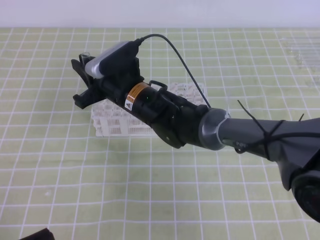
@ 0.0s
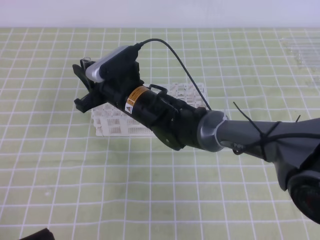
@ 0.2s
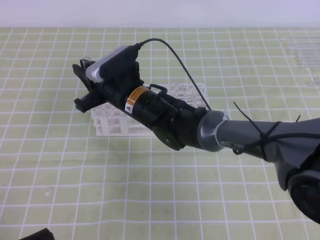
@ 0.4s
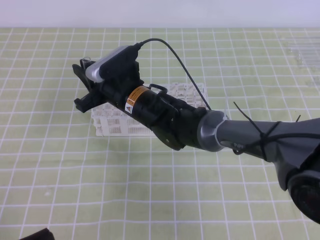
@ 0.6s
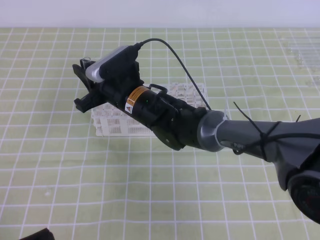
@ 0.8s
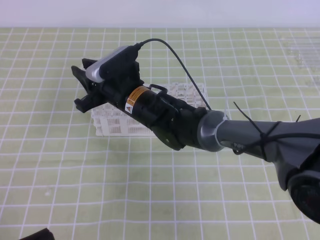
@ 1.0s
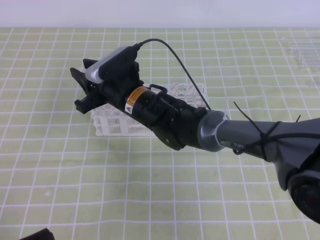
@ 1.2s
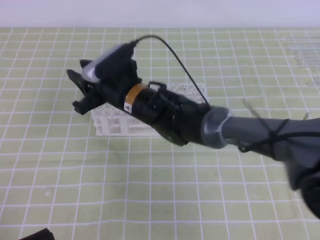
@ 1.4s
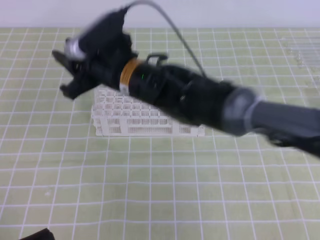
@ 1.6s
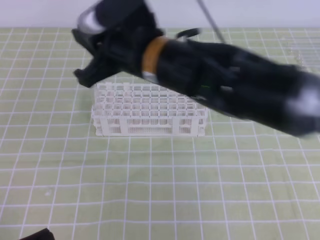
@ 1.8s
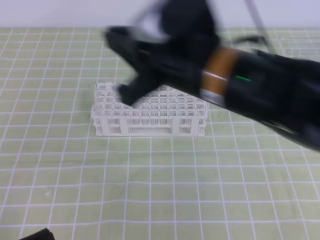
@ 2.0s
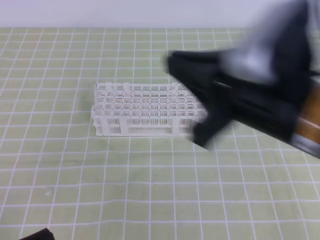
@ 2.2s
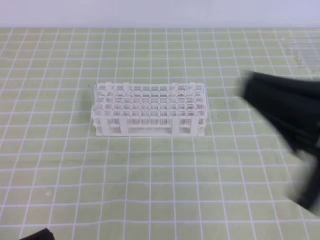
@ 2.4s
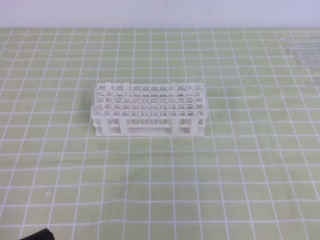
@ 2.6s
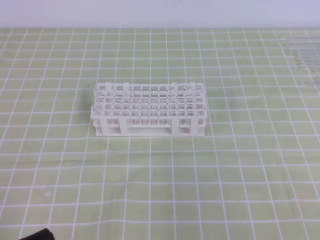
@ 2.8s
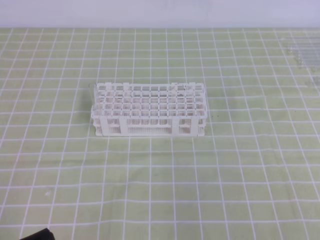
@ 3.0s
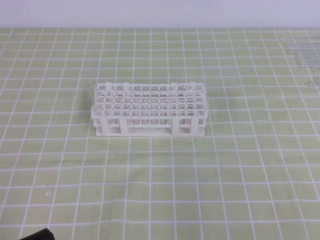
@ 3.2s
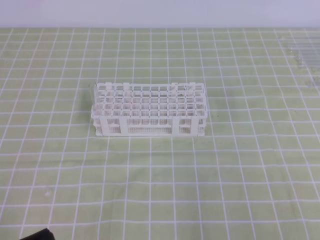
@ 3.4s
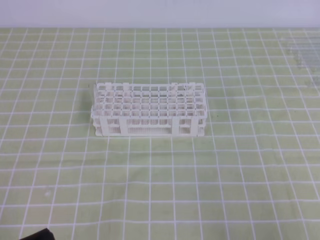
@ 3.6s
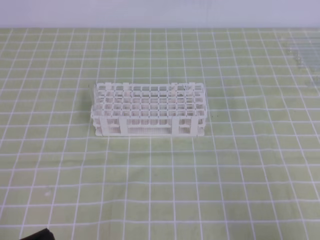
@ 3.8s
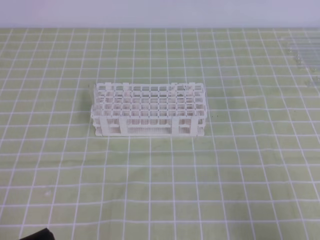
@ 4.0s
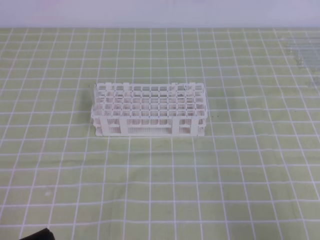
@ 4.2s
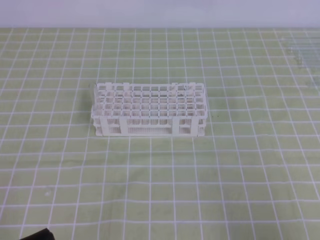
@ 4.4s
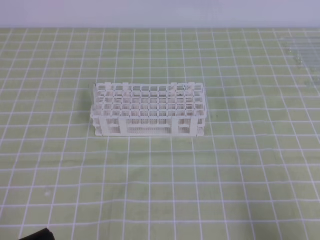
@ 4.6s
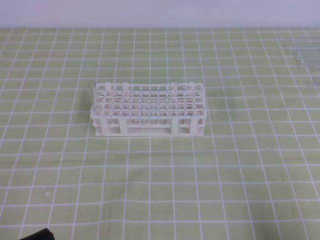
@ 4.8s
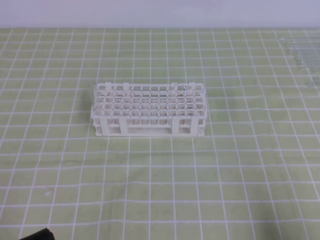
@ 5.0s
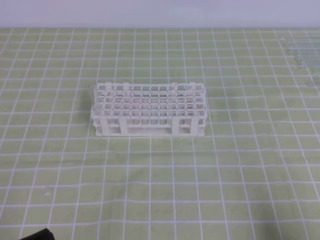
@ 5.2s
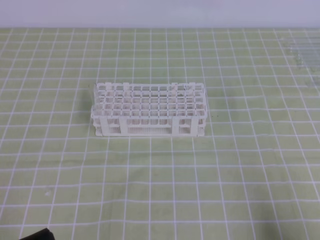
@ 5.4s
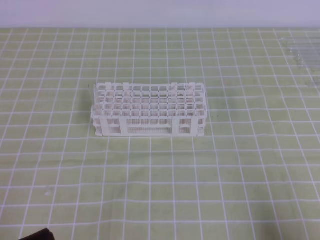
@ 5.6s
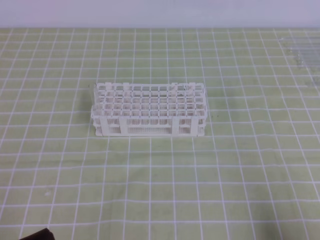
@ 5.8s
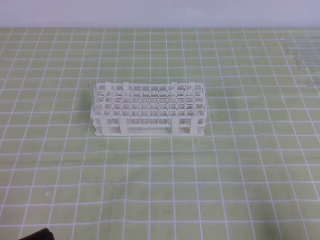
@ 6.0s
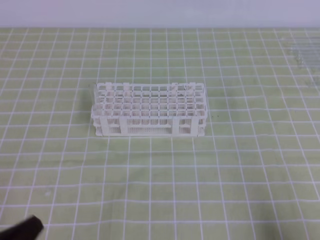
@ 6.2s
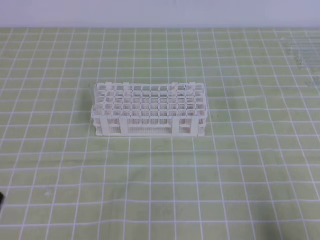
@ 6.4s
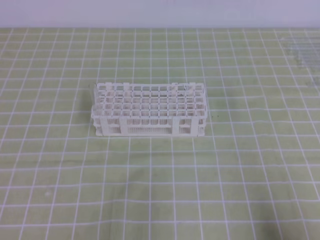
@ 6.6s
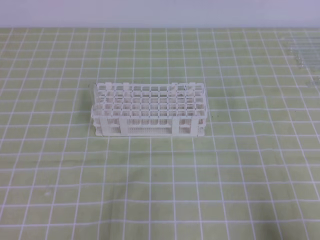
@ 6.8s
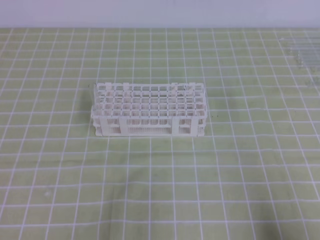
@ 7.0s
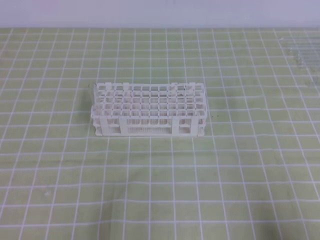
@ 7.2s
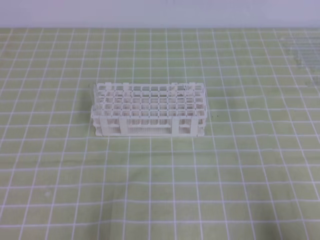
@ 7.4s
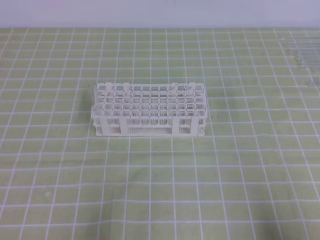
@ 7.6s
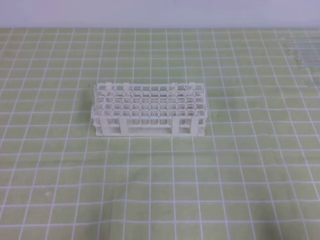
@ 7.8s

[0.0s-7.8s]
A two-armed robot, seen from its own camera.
0.0s to 1.6s: The right gripper heads upward, covering some 5 cm.
1.6s to 3.2s: The right gripper moves to the right and backward, roughly 50 cm, and closes.
3.2s to 4.6s: The right gripper moves downward, about 5 cm.
4.6s to 6.2s: The grippers make only small movements.

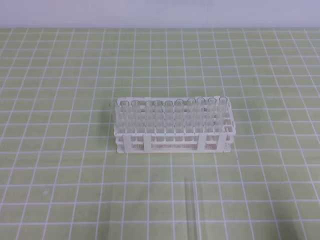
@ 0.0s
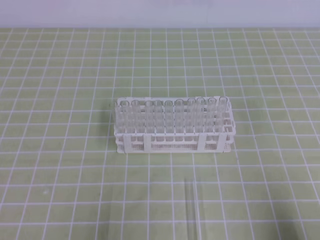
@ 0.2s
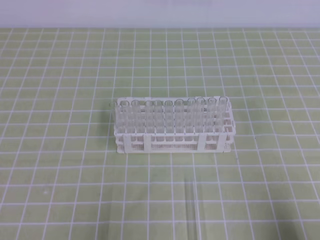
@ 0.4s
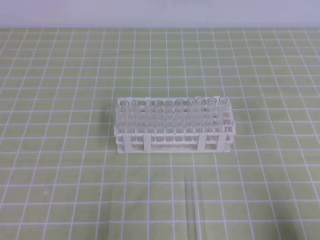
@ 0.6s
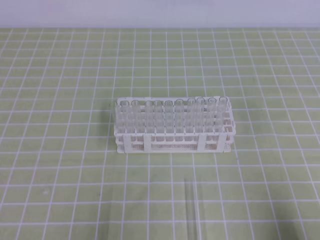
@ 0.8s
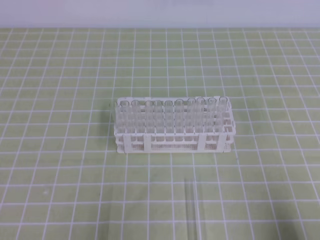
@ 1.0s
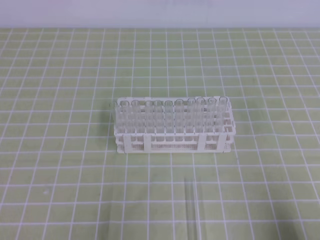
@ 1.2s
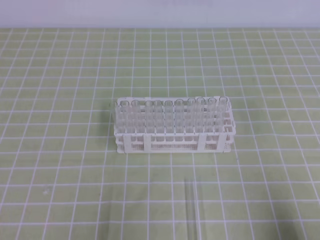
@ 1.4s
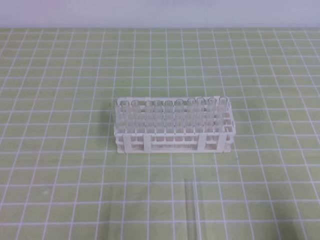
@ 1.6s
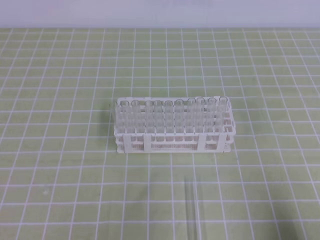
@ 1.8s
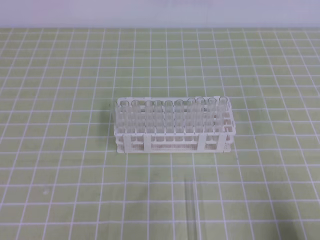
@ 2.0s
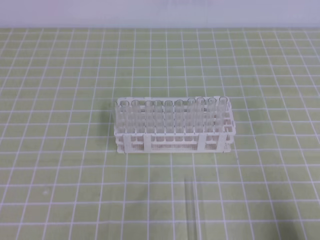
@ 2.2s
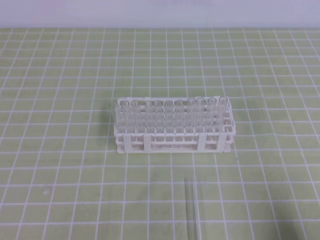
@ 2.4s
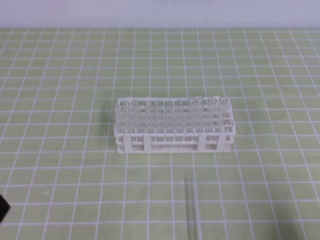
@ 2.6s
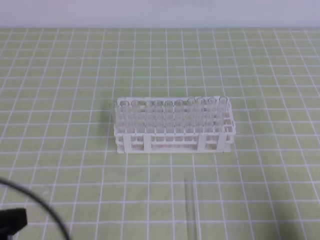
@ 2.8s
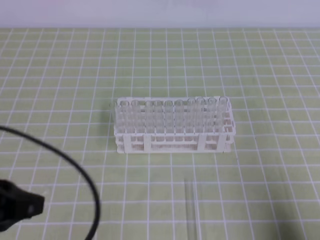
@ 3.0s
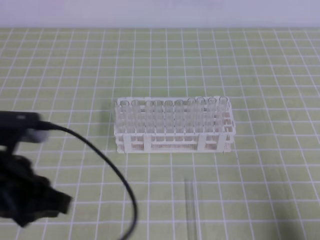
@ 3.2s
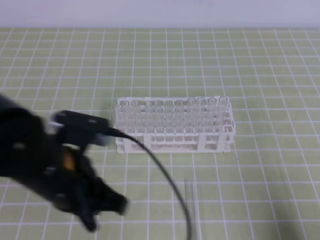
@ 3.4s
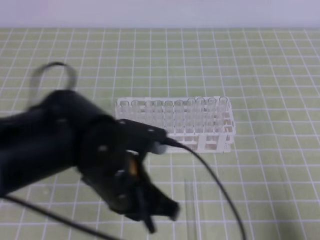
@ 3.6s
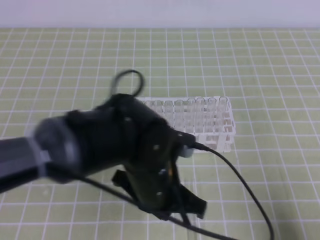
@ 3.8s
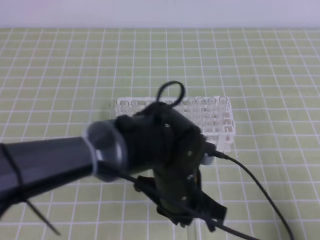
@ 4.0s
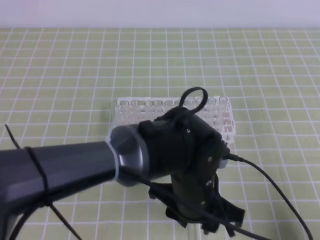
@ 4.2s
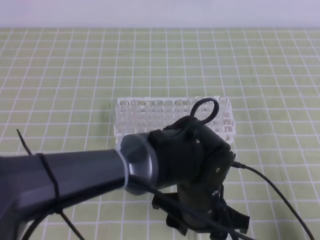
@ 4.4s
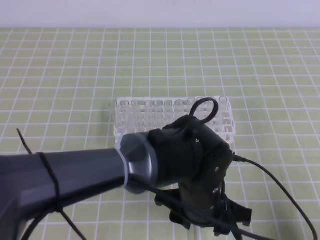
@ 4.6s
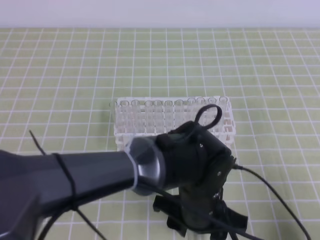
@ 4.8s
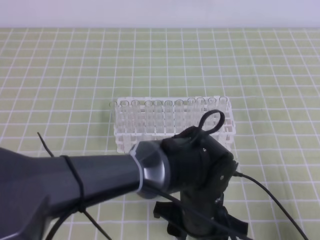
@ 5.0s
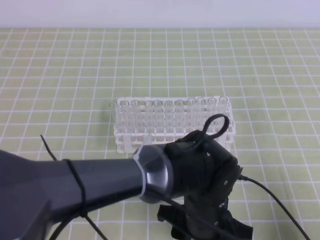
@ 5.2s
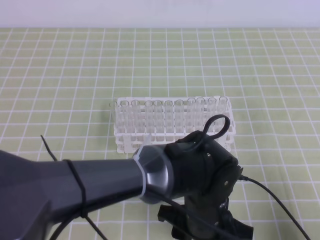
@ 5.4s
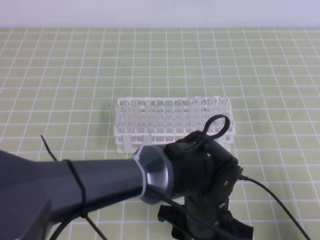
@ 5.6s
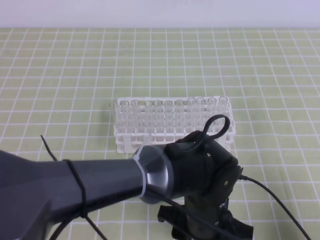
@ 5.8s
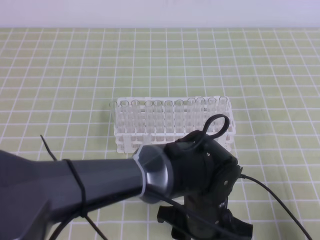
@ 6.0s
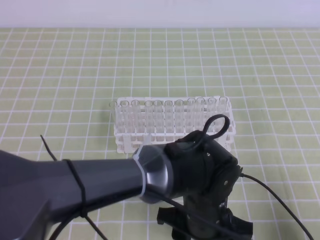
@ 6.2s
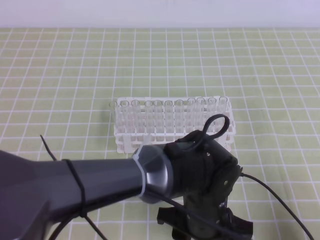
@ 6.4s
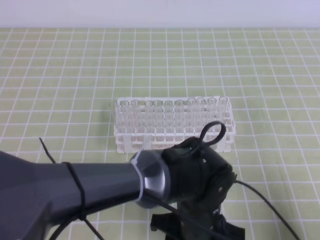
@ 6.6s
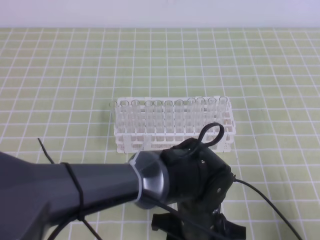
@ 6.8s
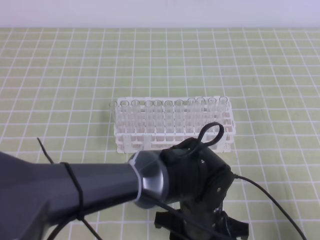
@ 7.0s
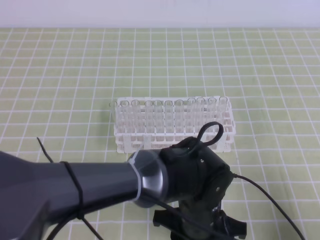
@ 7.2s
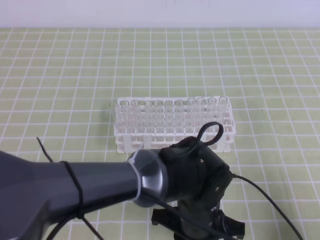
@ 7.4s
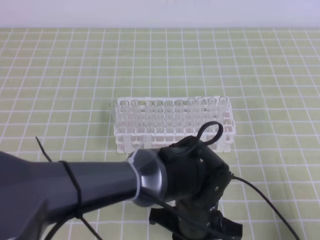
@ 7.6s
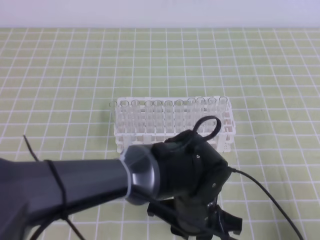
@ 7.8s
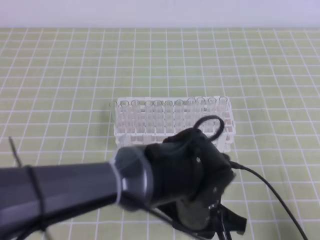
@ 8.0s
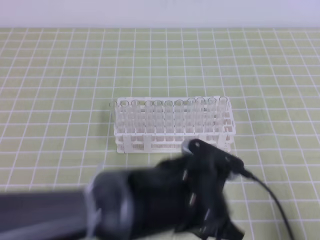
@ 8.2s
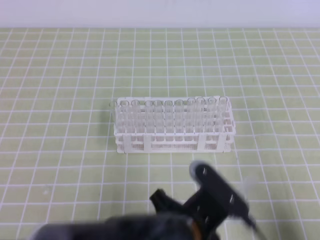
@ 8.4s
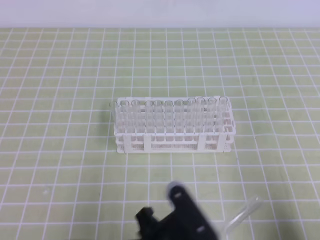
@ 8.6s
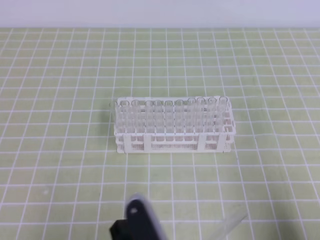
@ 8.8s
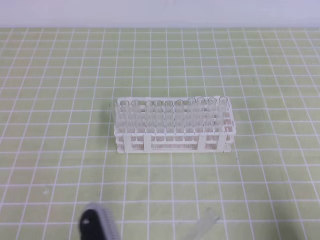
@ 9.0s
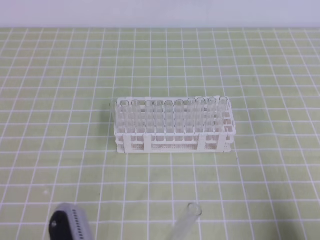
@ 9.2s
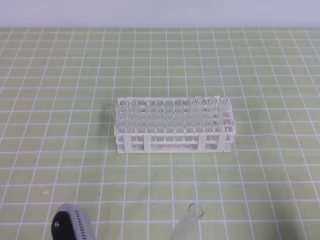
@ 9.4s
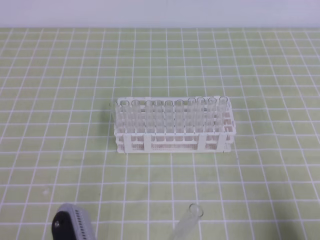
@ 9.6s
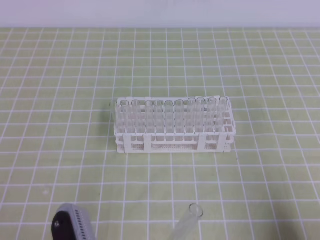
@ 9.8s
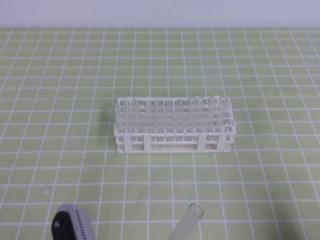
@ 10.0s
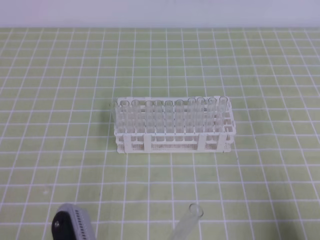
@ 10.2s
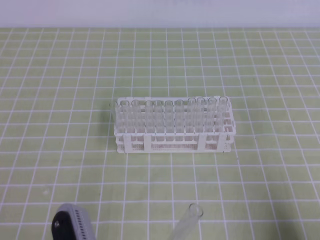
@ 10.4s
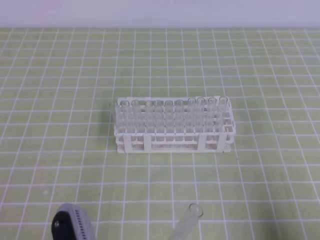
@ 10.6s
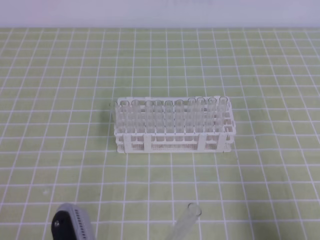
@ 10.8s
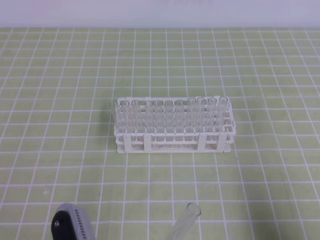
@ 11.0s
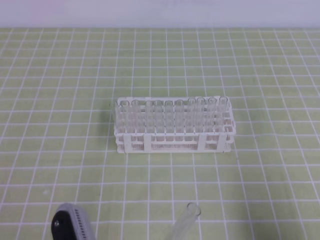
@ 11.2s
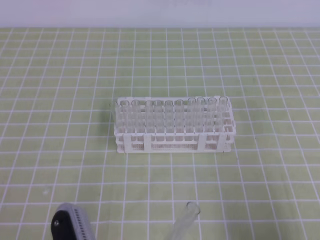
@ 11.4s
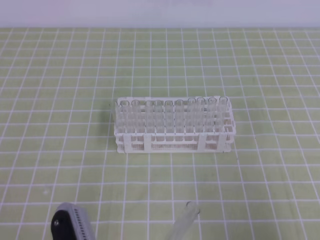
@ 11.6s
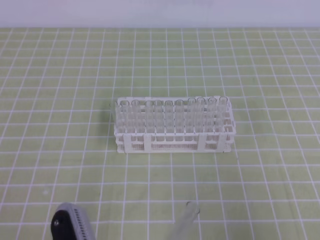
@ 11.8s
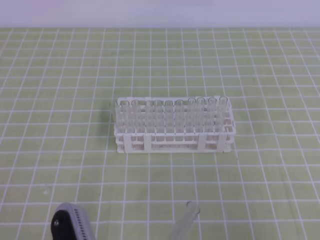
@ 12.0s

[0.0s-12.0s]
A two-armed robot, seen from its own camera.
1.6s to 3.0s: The left gripper is displaced upward by about 10 cm.
3.0s to 4.4s: The left gripper heads to the right, covering about 30 cm, and opens its fingers.
4.4s to 6.0s: There are only small adjustments of the grippers.
6.0s to 7.6s: The left gripper closes.
7.6s to 9.0s: The left gripper travels to the left, backward and upward by roughly 20 cm.
9.0s to 10.4s: The grippers move only a little.
10.4s to 12.0s: The right gripper goes approximately 10 cm upward.

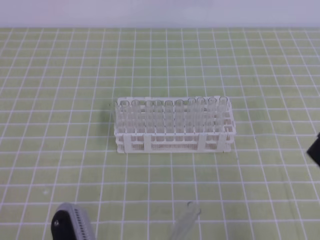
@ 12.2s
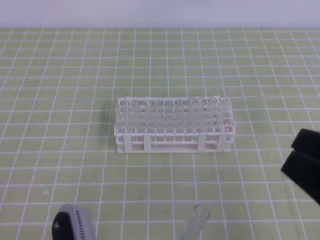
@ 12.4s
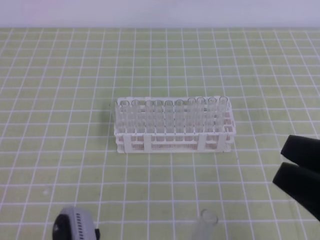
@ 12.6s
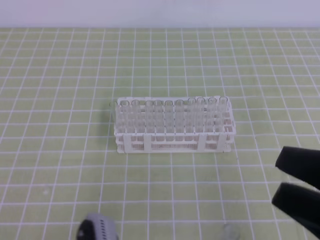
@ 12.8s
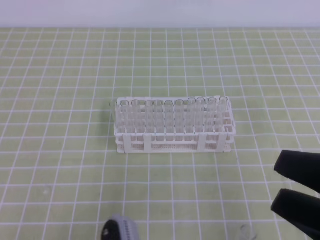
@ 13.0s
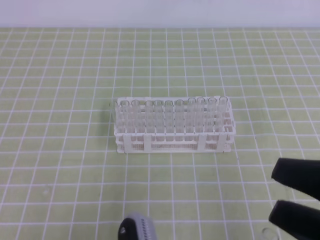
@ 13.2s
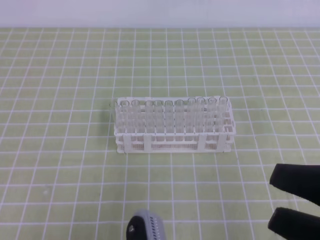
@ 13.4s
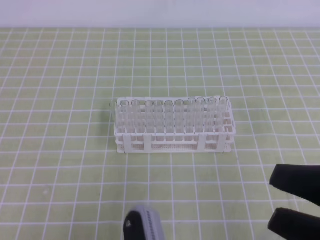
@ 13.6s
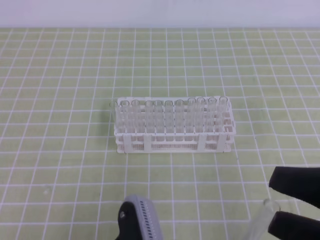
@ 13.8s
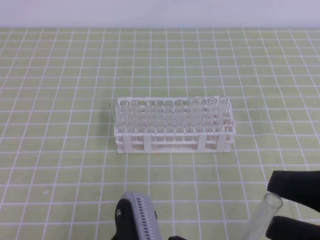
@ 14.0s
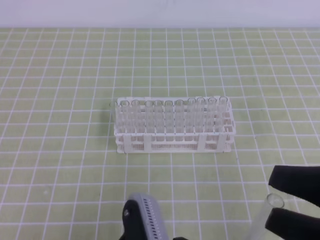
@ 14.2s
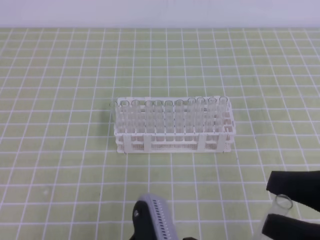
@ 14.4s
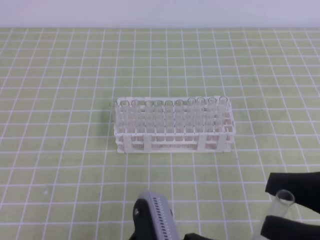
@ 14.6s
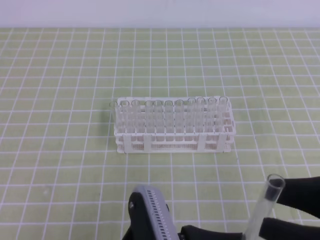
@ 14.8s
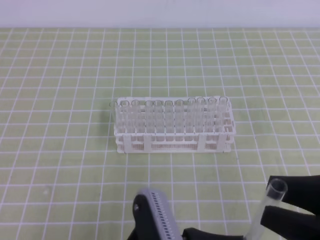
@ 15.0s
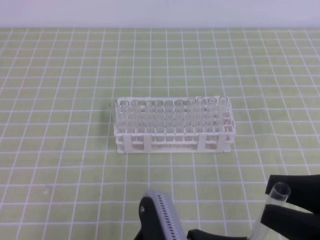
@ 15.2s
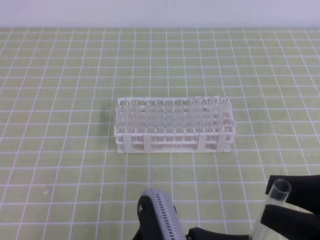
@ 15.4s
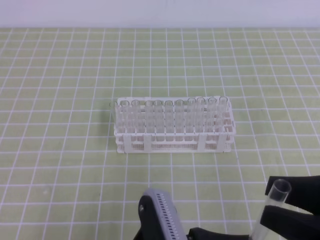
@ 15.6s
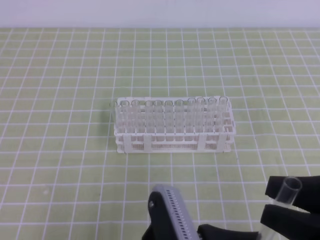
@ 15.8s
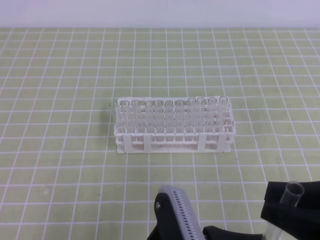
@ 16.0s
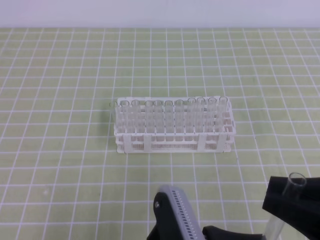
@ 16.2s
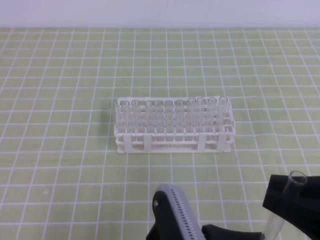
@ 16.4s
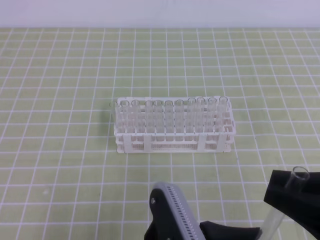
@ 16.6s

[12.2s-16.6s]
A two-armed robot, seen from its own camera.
12.2s to 13.6s: The right gripper opens; the left gripper moves to the right, roughly 5 cm.
13.6s to 15.2s: The grippers stay close to where they were, moving slightly.
15.2s to 16.6s: The right gripper closes.
